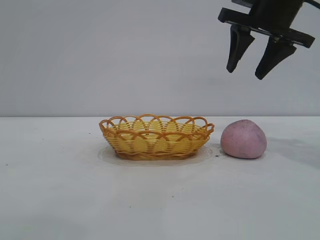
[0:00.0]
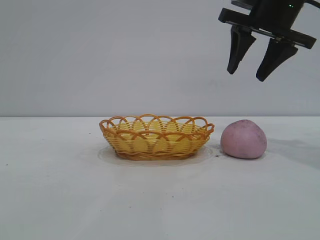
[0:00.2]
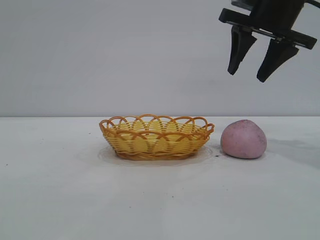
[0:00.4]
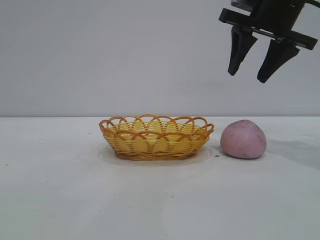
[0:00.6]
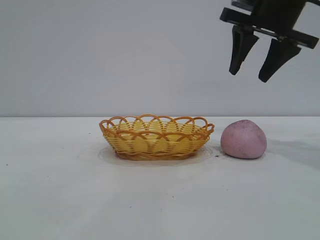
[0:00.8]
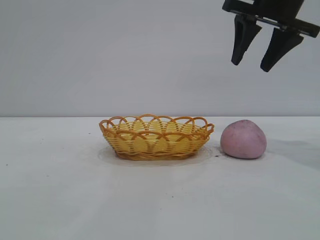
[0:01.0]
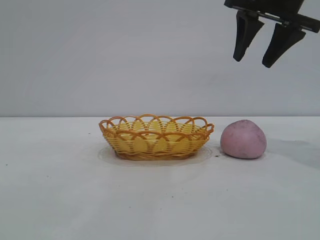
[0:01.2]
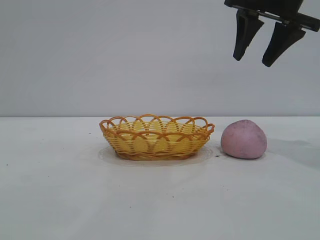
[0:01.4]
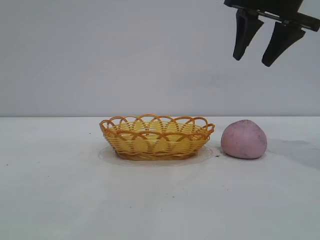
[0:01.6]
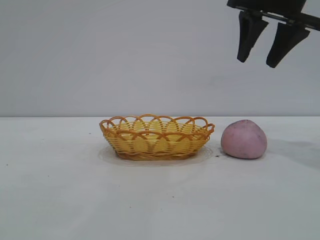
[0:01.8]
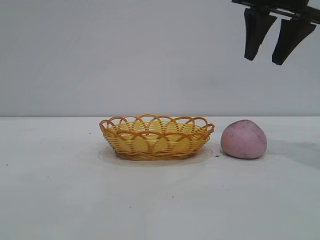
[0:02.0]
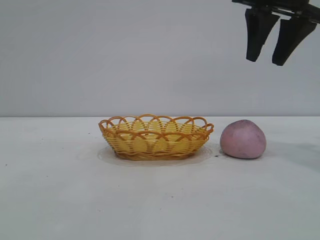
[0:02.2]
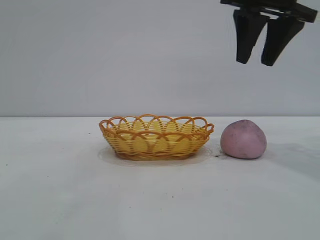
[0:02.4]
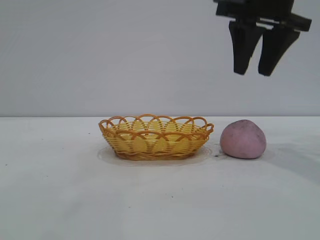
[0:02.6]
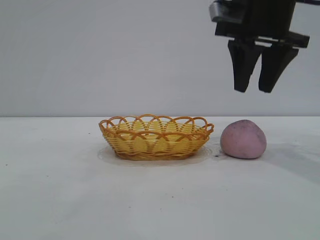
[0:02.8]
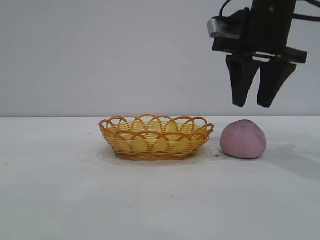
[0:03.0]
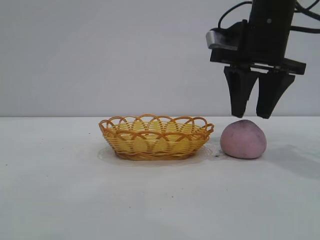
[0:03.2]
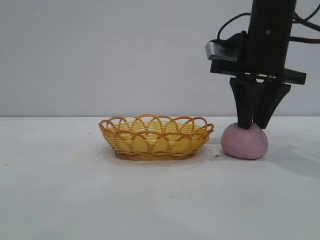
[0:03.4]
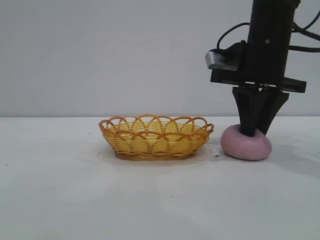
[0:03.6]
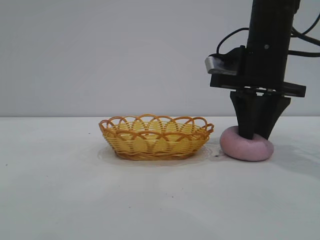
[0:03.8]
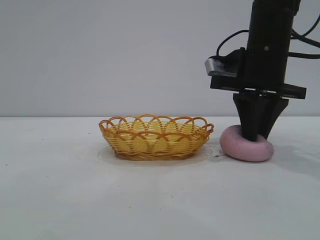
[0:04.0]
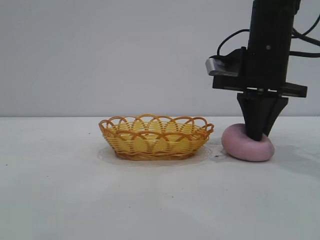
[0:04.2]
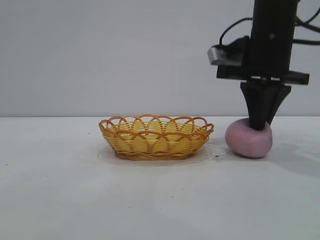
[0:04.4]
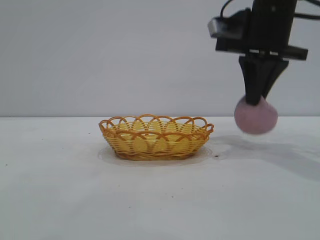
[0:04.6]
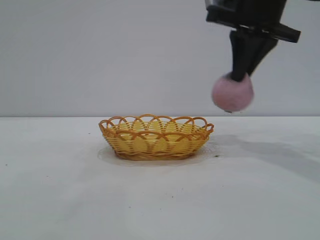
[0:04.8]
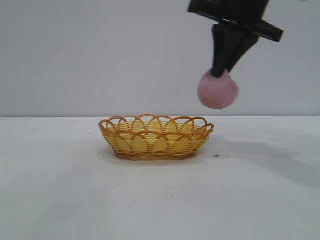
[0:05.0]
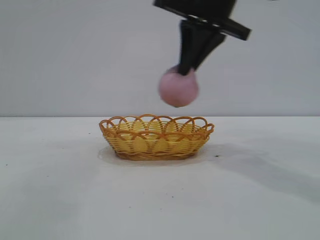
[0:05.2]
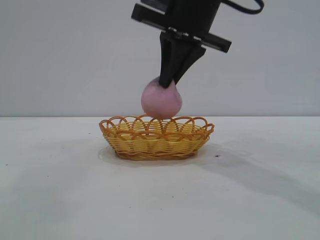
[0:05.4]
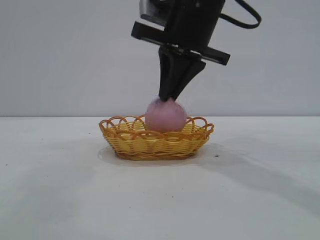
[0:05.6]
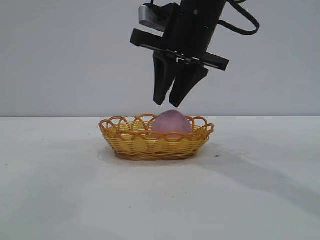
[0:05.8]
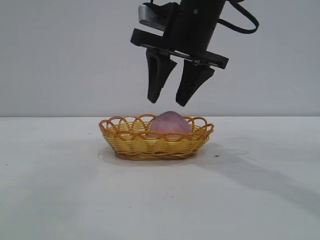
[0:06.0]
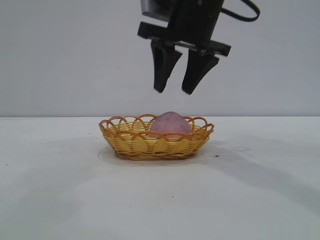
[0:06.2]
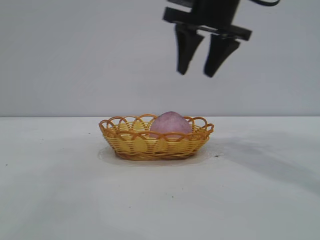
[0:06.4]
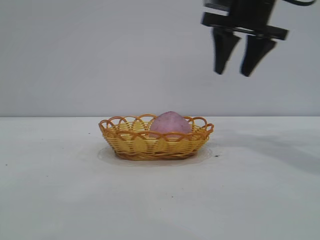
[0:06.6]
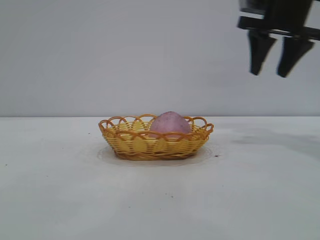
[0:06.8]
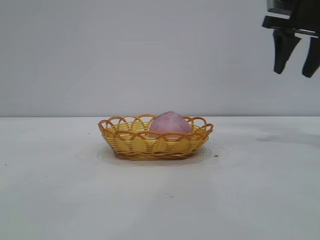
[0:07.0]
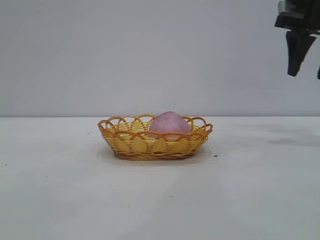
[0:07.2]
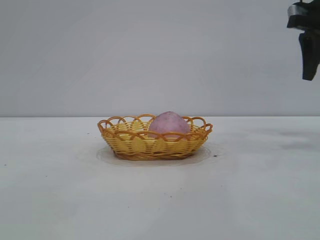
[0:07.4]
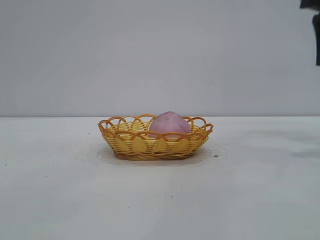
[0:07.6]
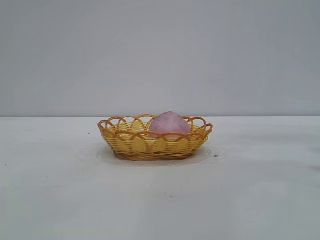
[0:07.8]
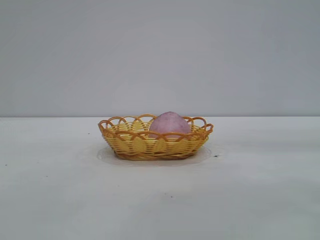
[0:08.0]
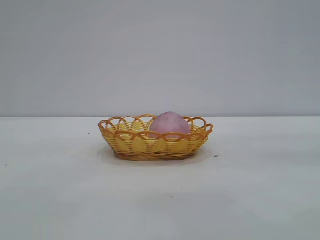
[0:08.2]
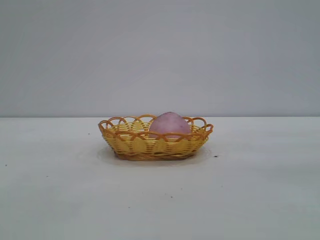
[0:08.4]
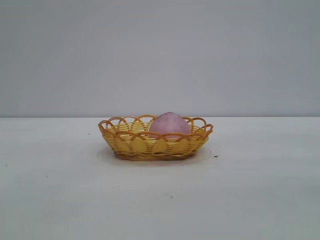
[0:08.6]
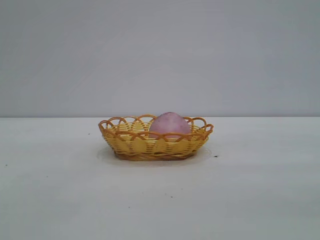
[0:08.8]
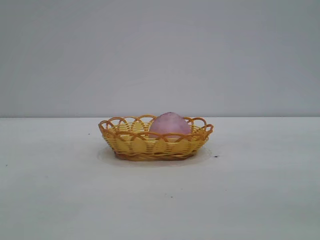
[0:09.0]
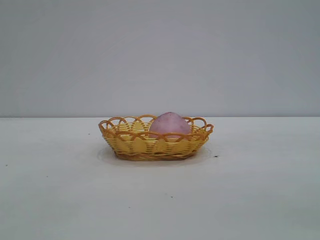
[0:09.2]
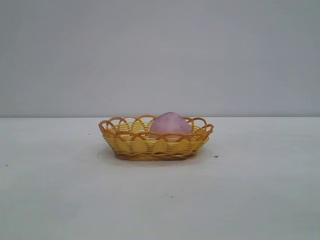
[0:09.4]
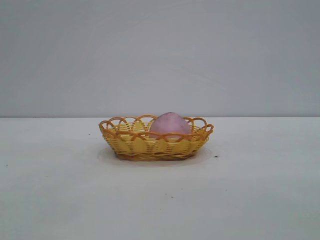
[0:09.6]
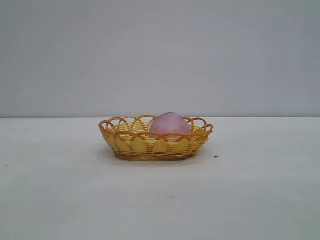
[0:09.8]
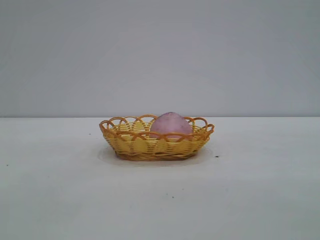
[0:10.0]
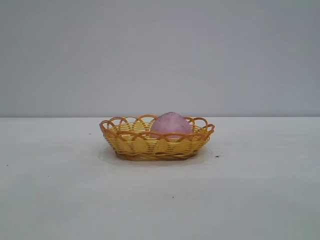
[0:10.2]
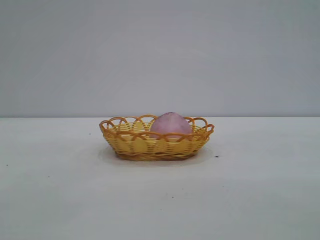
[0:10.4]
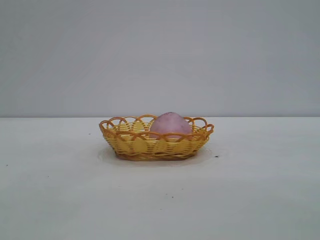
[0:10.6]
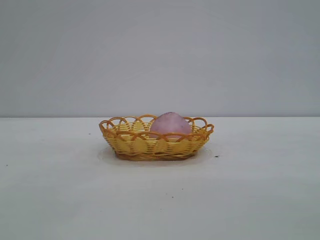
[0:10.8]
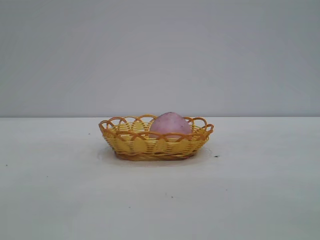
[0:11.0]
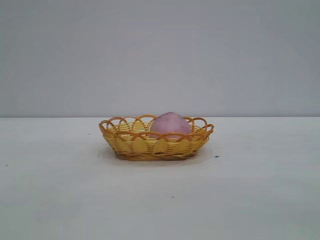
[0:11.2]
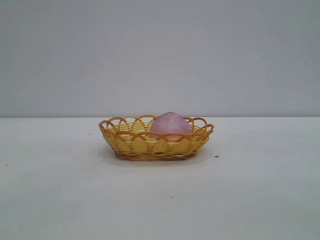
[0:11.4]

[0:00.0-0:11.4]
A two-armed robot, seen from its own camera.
Task of the whole recording: pick up the peach and put it into the basket.
Step, 0:00.0 to 0:04.6: Pick up the peach.
Step, 0:04.8 to 0:06.2: place the peach into the basket.
